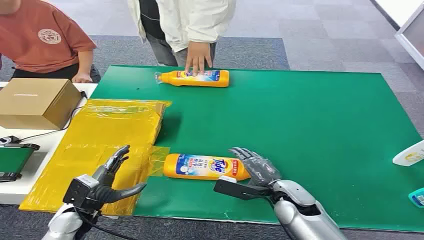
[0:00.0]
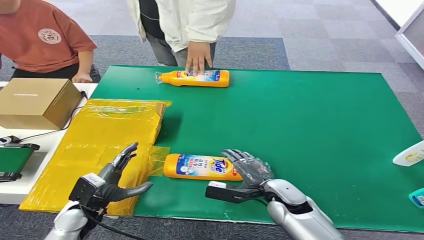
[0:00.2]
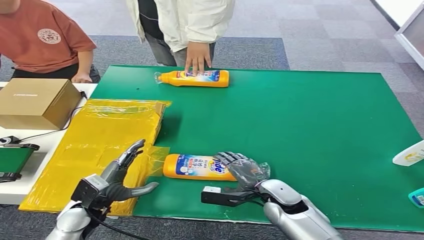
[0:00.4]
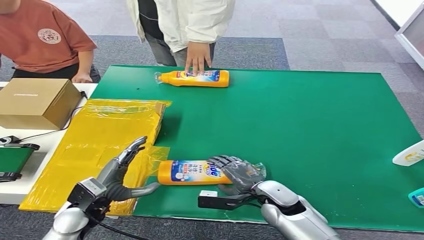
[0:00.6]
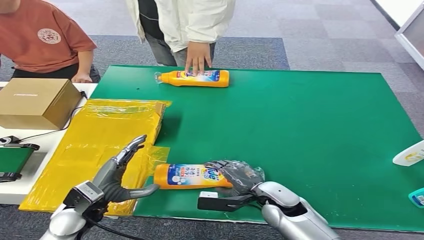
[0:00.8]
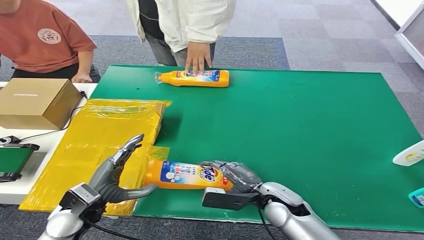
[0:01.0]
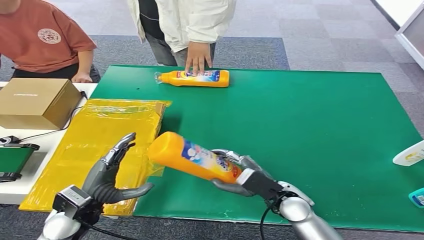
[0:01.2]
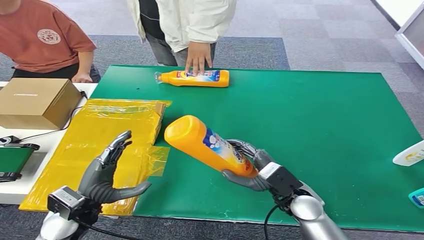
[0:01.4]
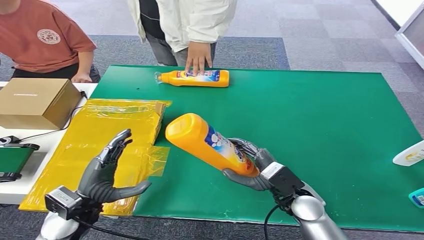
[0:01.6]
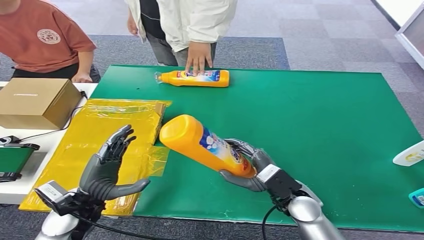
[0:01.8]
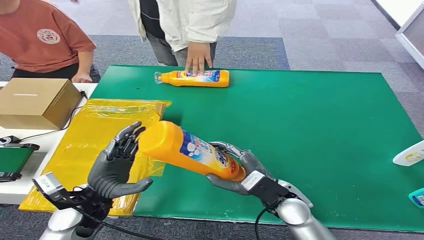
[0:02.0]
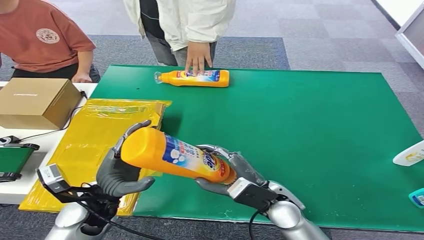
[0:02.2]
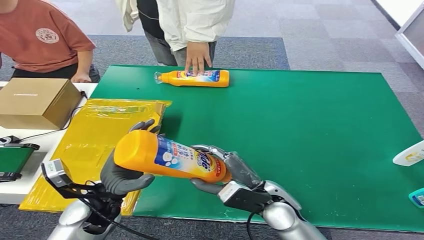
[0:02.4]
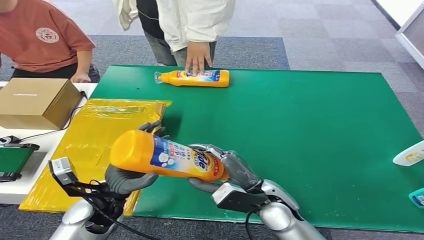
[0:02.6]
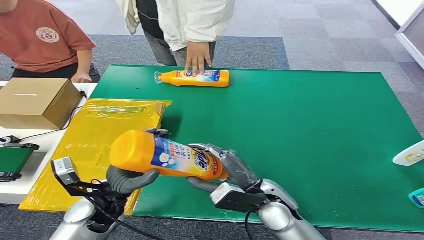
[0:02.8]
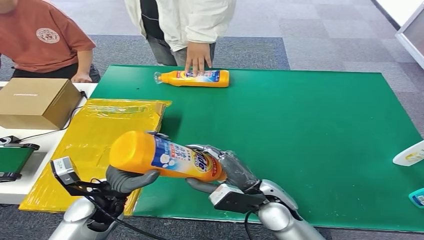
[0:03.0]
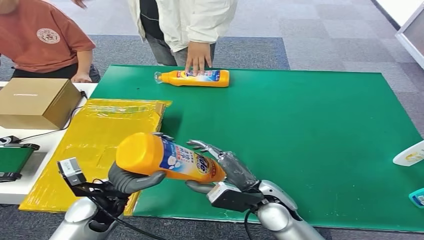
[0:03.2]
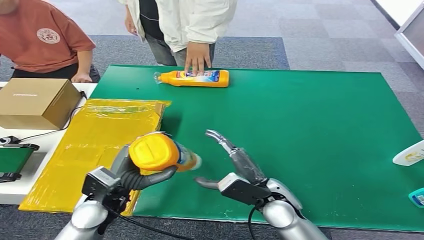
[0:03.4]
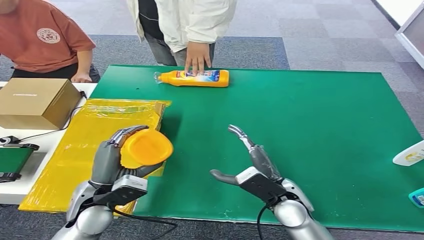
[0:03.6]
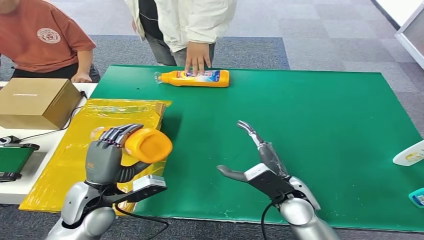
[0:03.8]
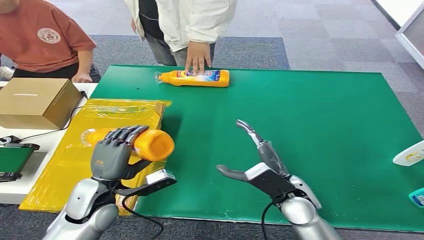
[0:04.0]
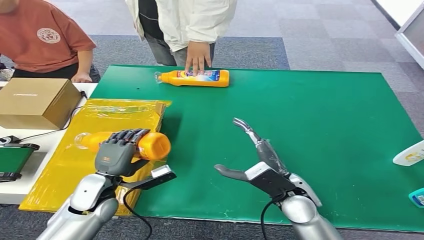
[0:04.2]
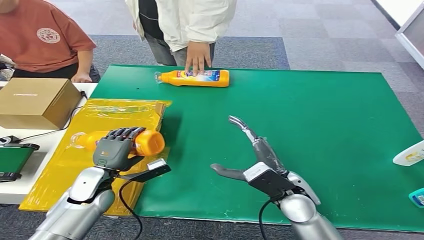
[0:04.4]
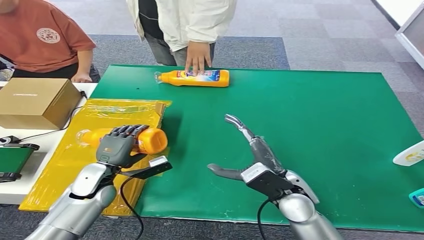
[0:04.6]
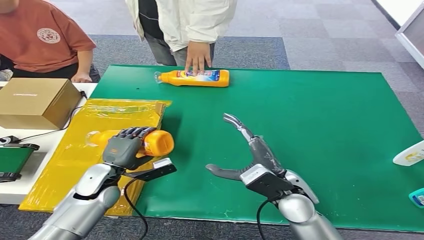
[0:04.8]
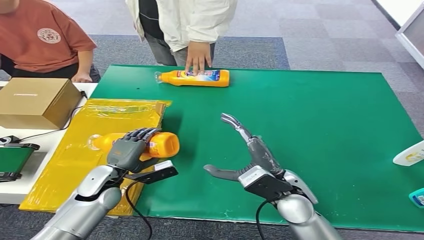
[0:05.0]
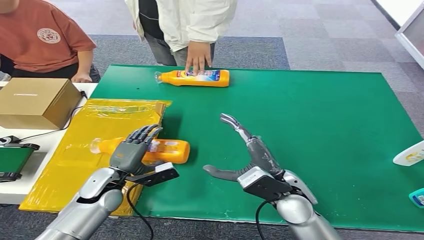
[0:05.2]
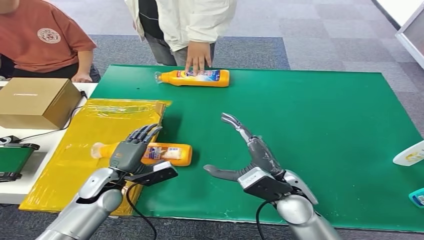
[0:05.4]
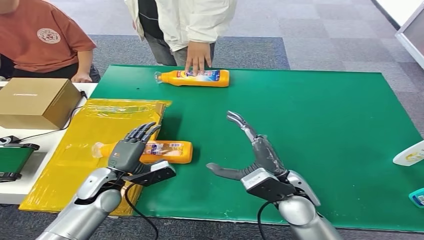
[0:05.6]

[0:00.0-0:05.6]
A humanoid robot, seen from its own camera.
Step, 0:00.0 to 0:01.6: Pick up the bottle from the table.
Step, 0:01.8 to 0:05.6: Turn the bottle to the front side.
0:01.4 to 0:02.8: The right hand heads to the left, covering about 5 cm. The left hand shifts approximately 5 cm to the right.
0:02.8 to 0:04.2: The left hand changes place by about 5 cm.
